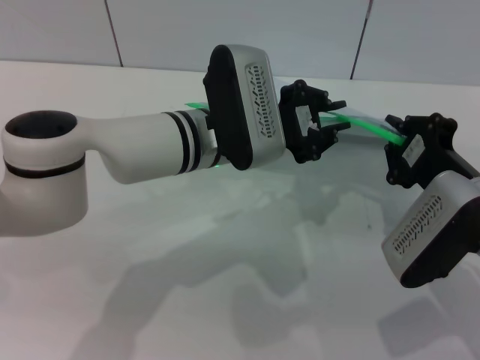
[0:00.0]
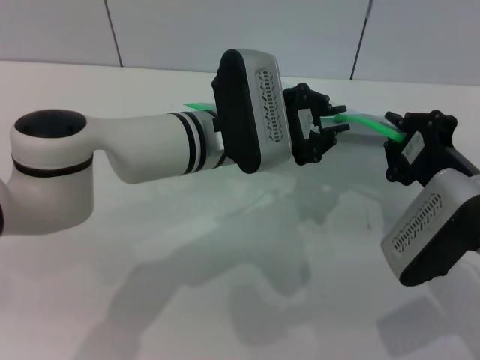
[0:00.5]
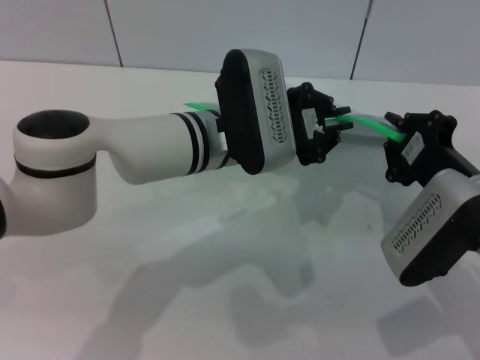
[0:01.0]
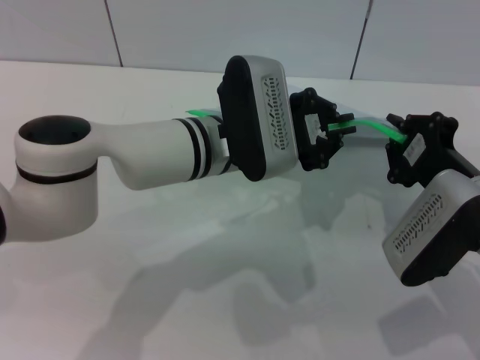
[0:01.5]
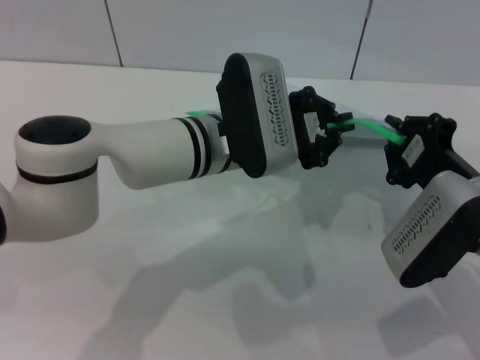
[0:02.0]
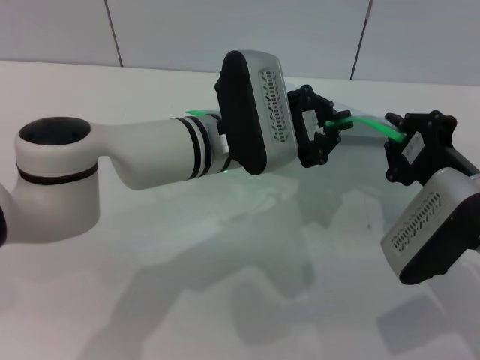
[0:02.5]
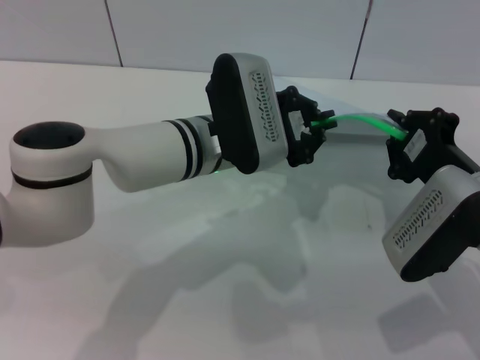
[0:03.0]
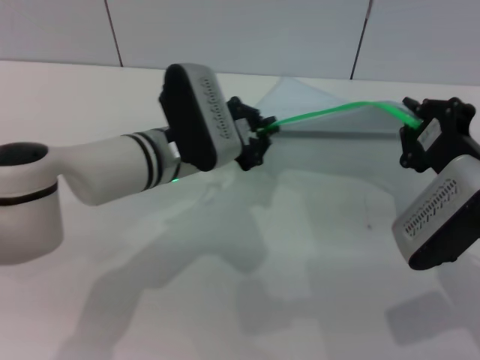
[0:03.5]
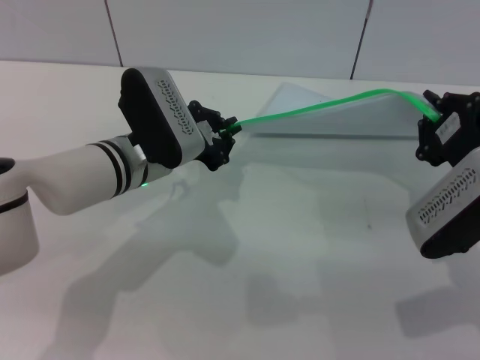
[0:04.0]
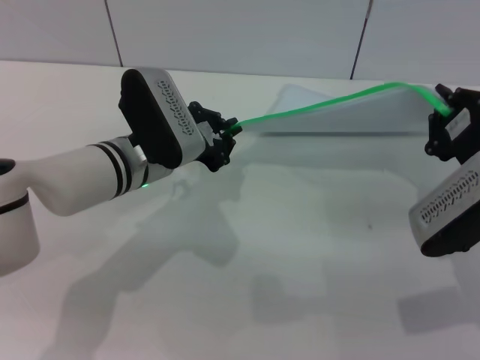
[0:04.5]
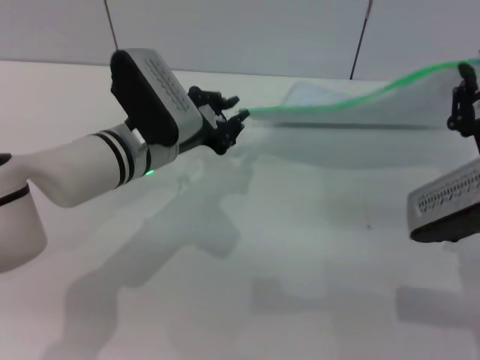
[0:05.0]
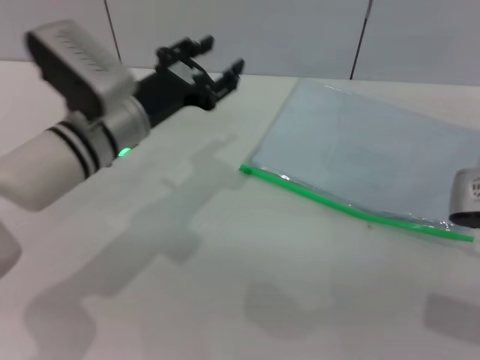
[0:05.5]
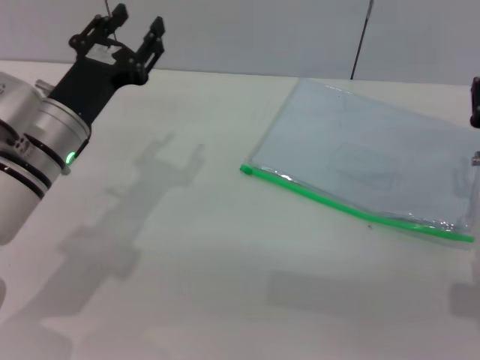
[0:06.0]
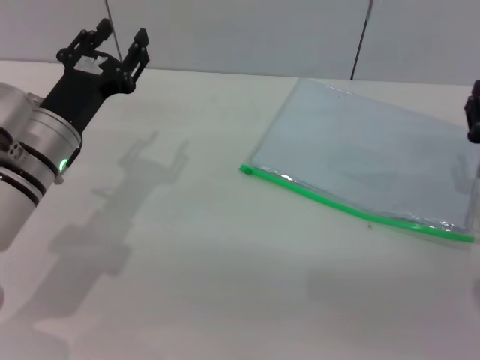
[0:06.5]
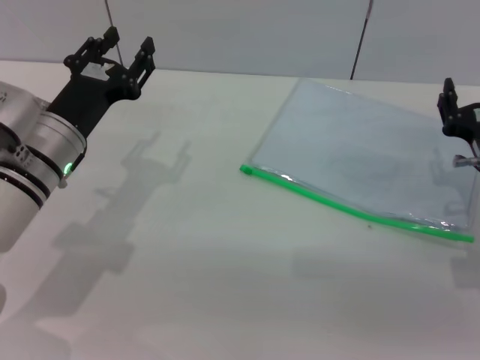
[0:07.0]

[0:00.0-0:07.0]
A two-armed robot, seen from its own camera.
Step, 0:00.0 to 0:05.0: Pulling up the zipper on the transparent plastic bag with the left gripper to close it.
Step, 0:05.5 to 0:06.0: Place the transparent plastic bag.
0:00.0 to 0:02.0: The left gripper closes.
0:02.0 to 0:03.5: The left gripper moves to the left, some 5 cm.
0:05.0 to 0:07.0: The right gripper changes place by approximately 5 cm, and opens up, while the left gripper moves to the left, roughly 10 cm, and opens up.
